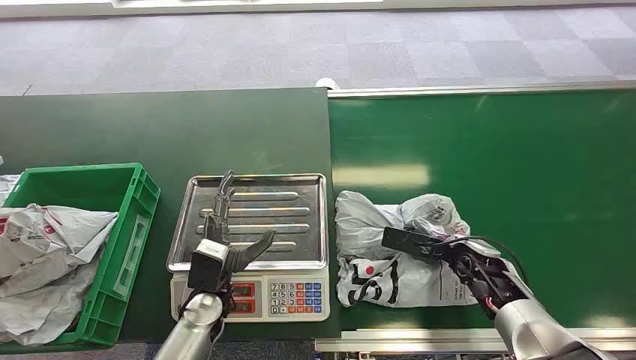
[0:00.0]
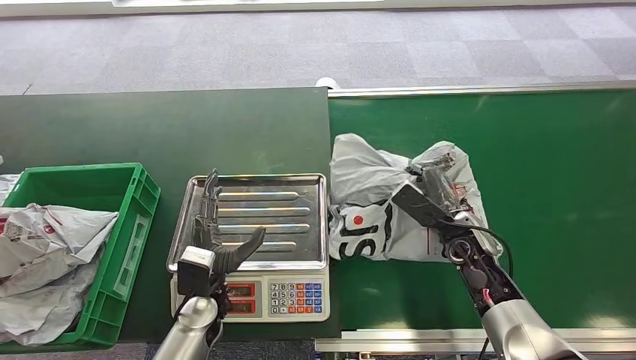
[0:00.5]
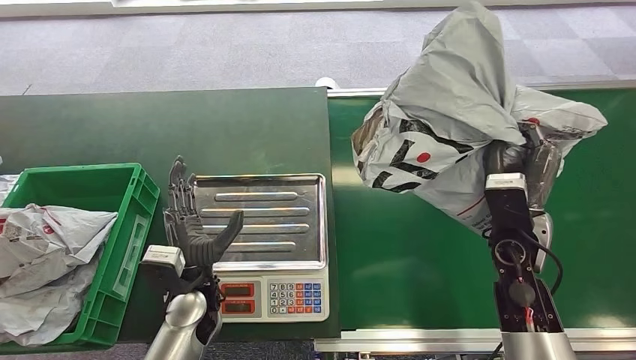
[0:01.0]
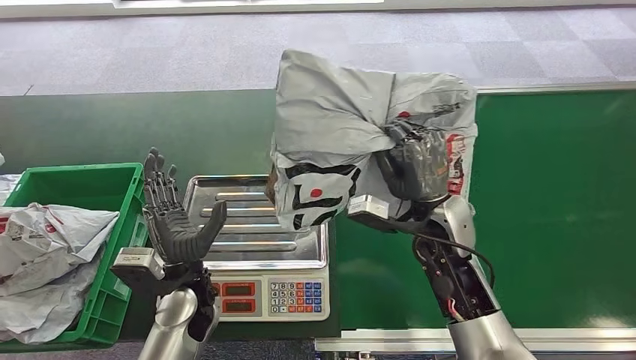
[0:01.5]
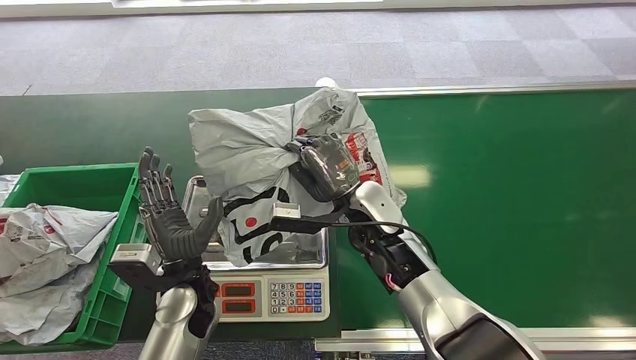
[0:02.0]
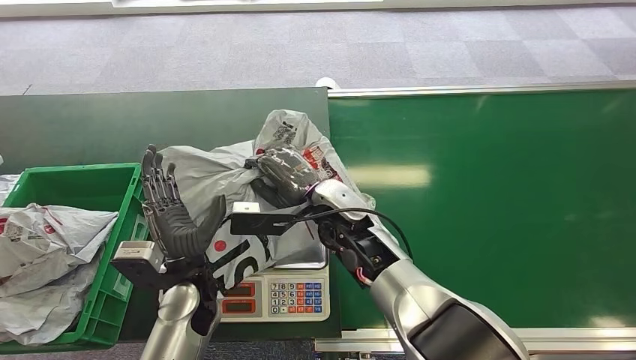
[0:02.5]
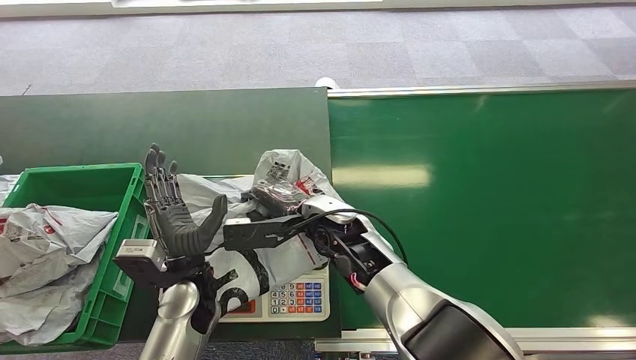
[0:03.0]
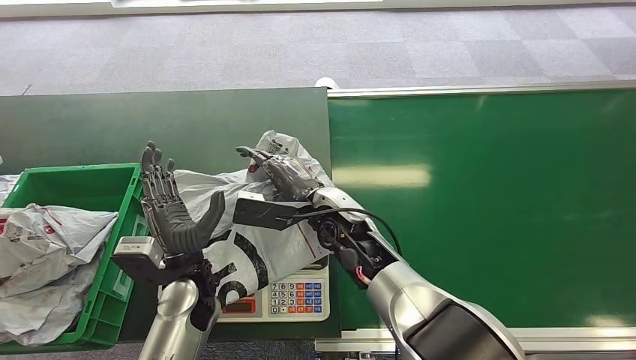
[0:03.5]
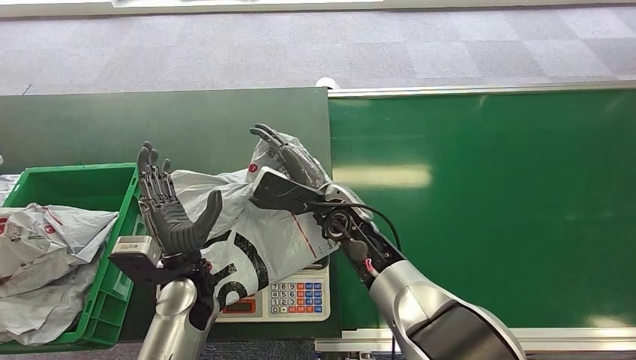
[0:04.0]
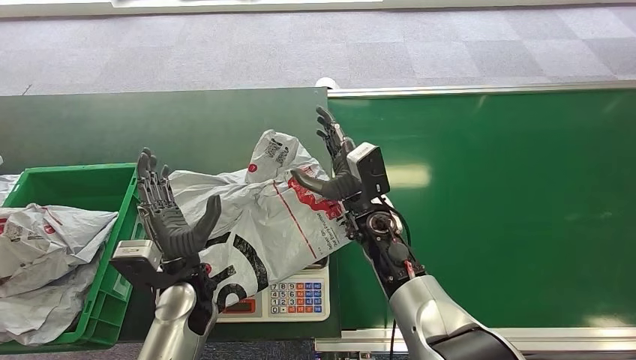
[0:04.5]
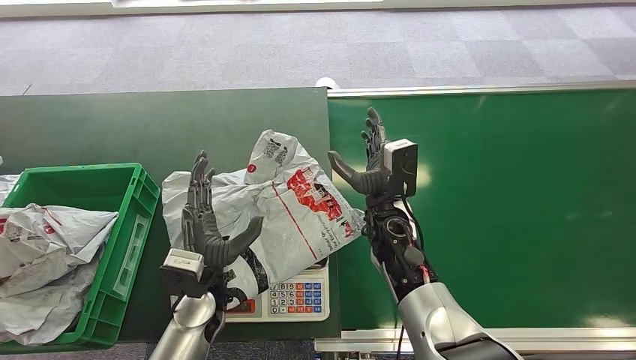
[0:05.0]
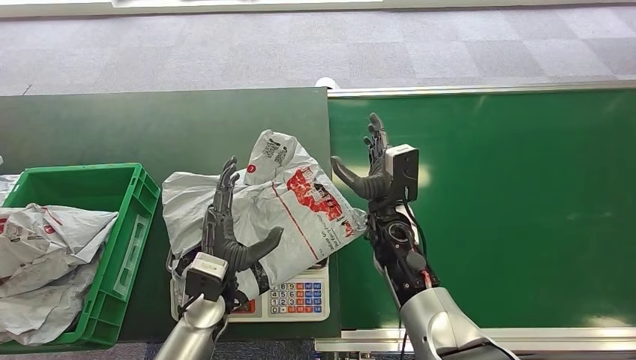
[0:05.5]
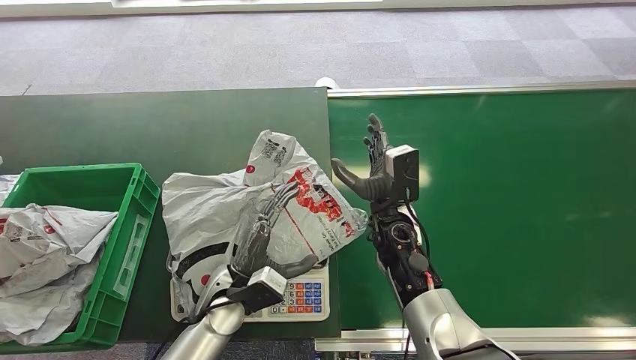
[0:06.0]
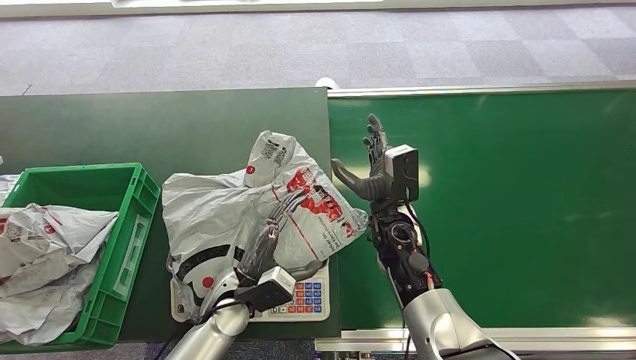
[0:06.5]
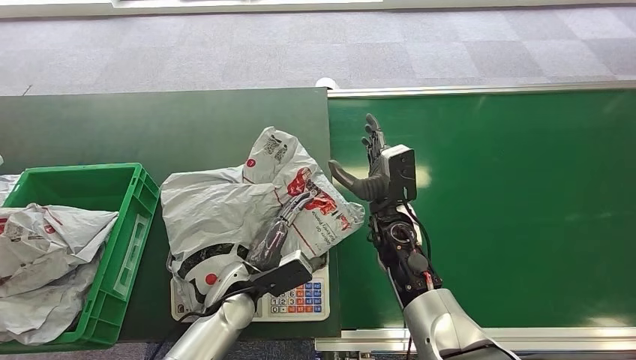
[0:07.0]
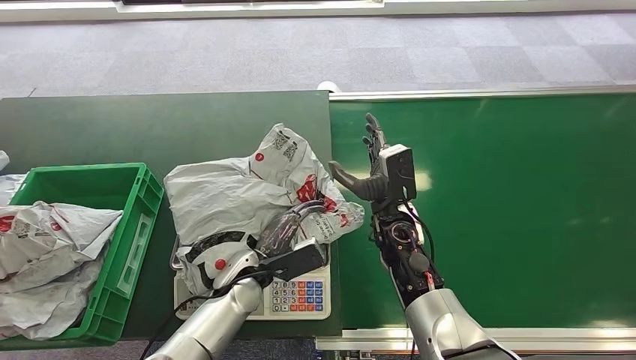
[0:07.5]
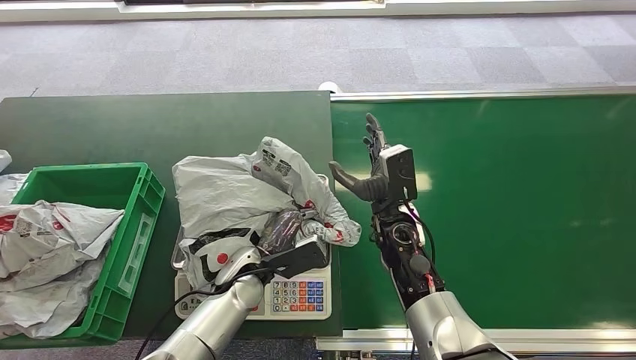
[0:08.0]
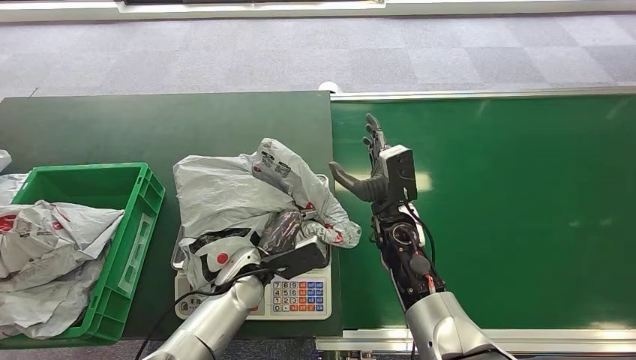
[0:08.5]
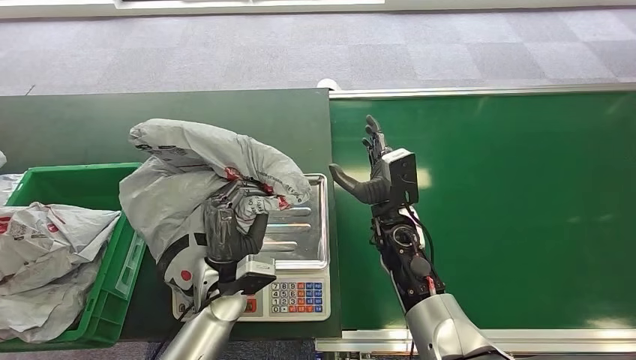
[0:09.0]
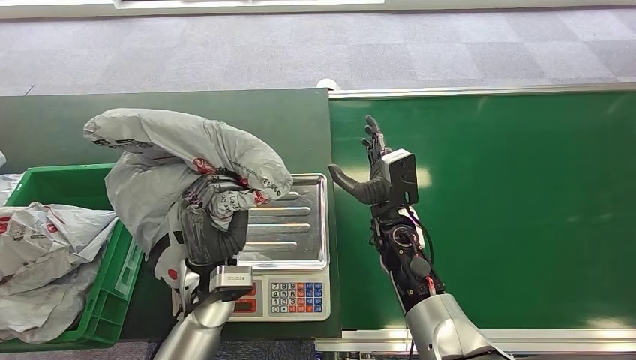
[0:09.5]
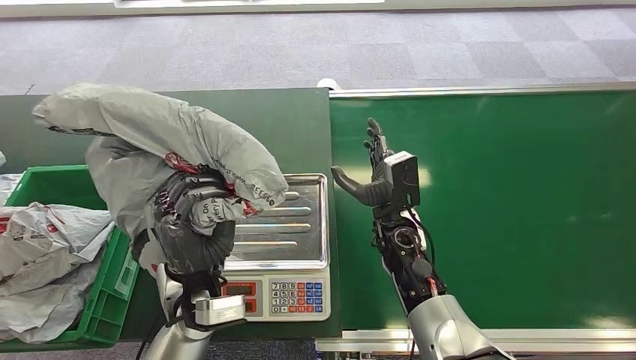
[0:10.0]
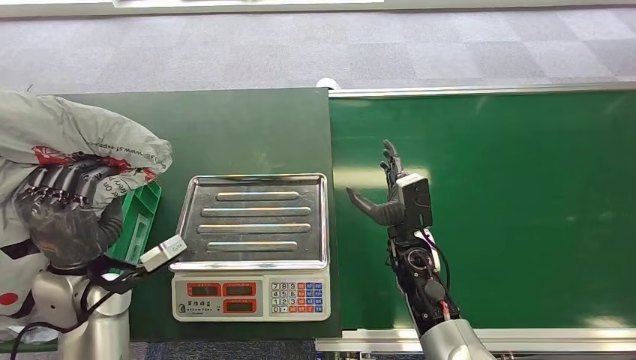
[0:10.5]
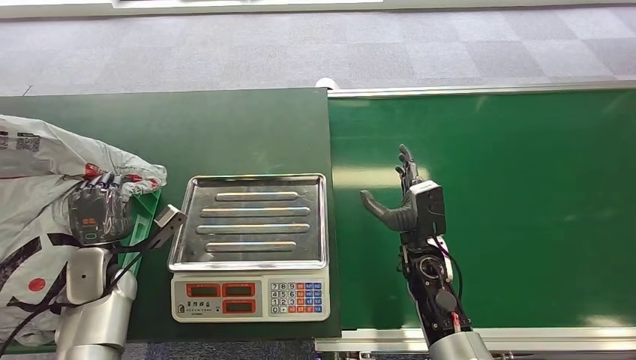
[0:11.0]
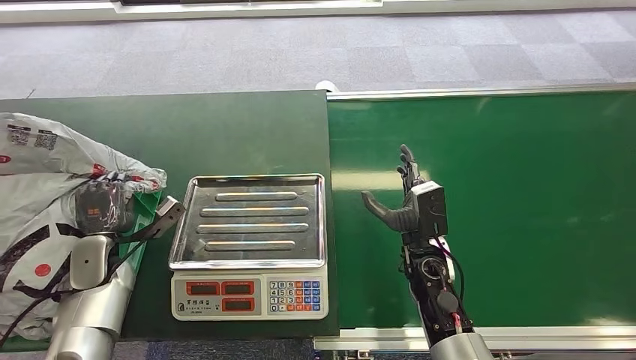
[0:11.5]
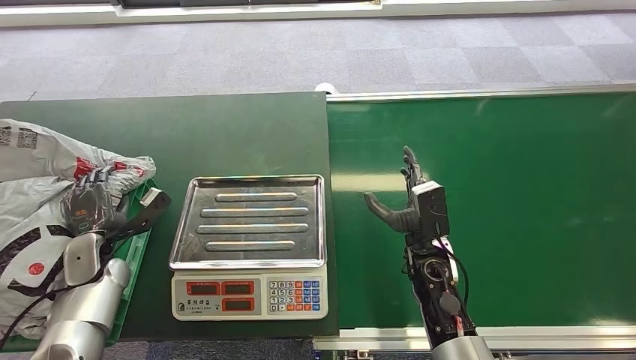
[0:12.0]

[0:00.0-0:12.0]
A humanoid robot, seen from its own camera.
Step, 0:00.0 to 0:00.5: Pick up the package from the conveyor belt.
Step, 0:02.0 to 0:03.0: Place the package onto the inbound machine.
Step, 0:08.5 to 0:09.5: Pick up the package from the inbound machine.
Step, 0:10.5 to 0:12.0: Place the package into the parcel locker.
0:04.0 to 0:06.0: The left hand changes place by roughly 5 cm; the right hand goes some 5 cm to the right.

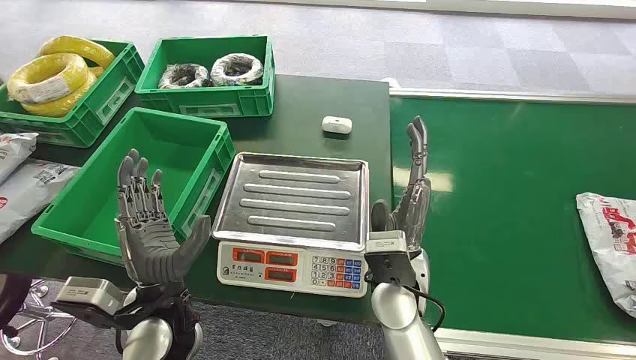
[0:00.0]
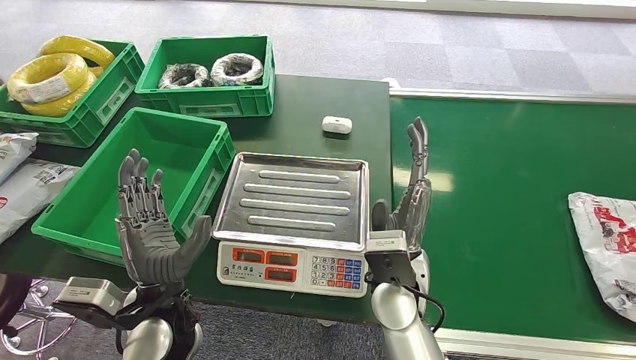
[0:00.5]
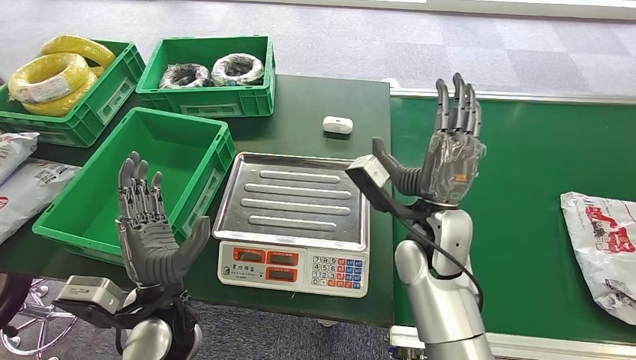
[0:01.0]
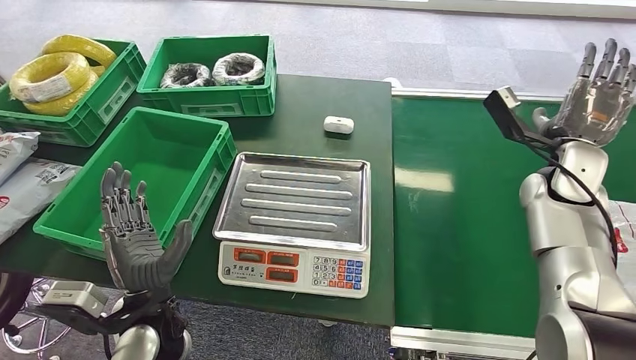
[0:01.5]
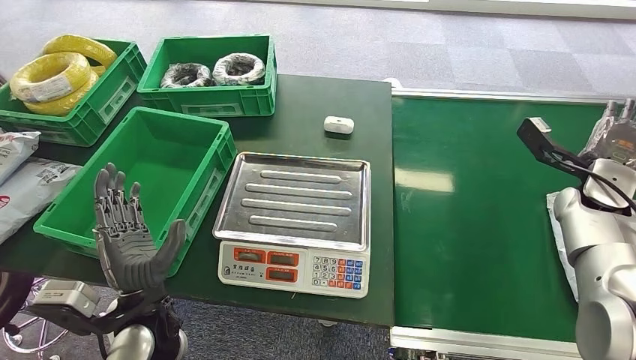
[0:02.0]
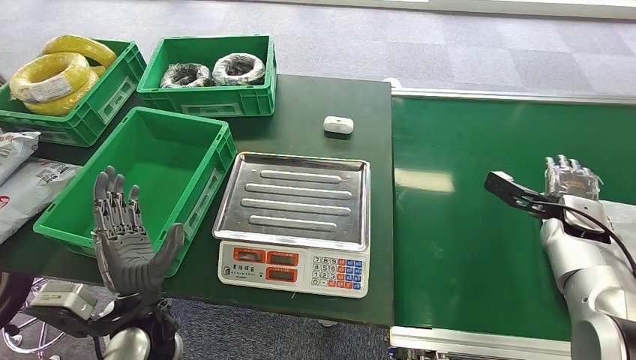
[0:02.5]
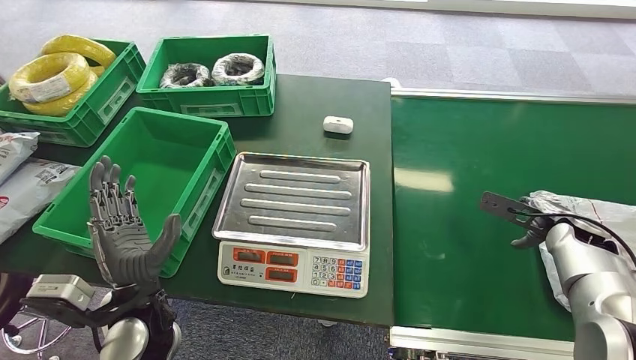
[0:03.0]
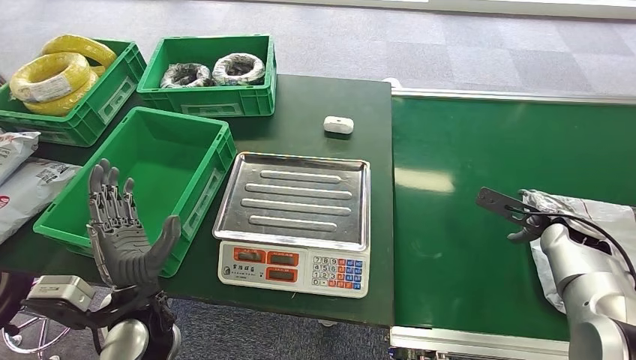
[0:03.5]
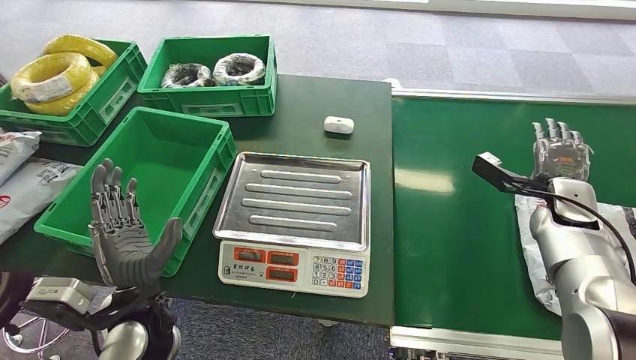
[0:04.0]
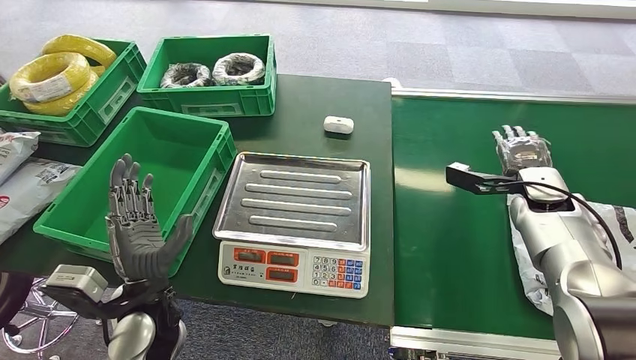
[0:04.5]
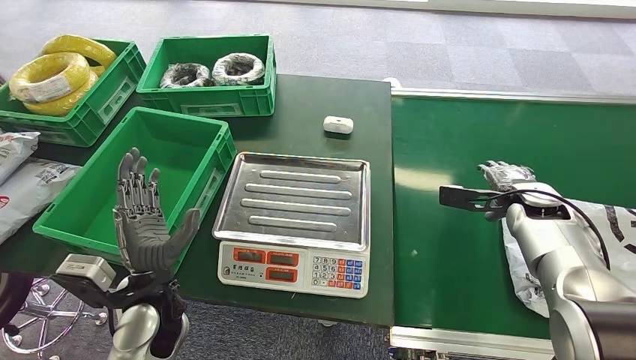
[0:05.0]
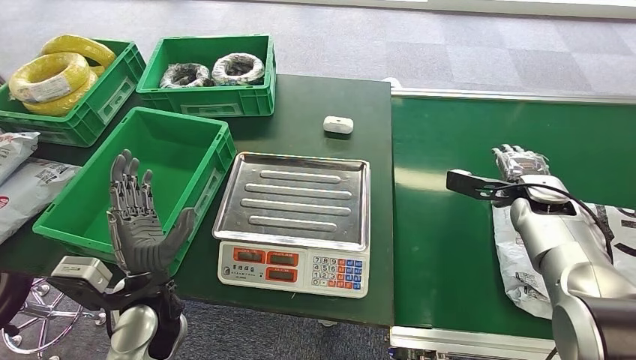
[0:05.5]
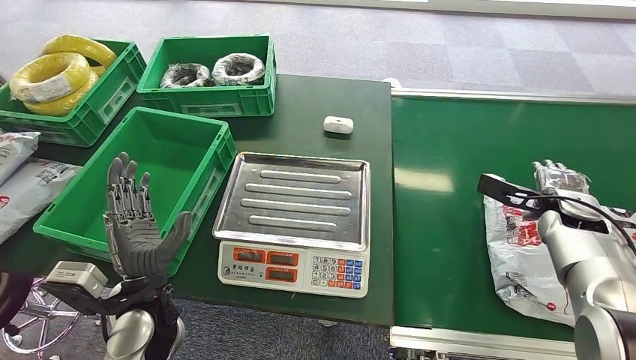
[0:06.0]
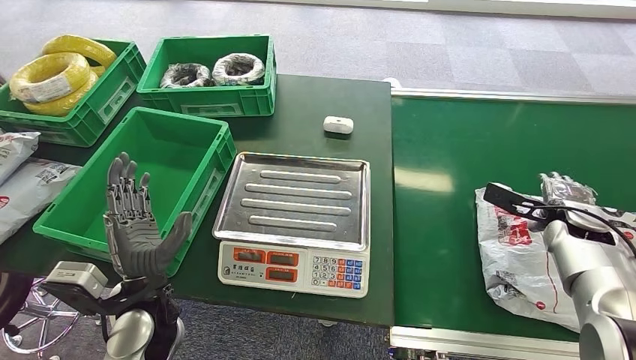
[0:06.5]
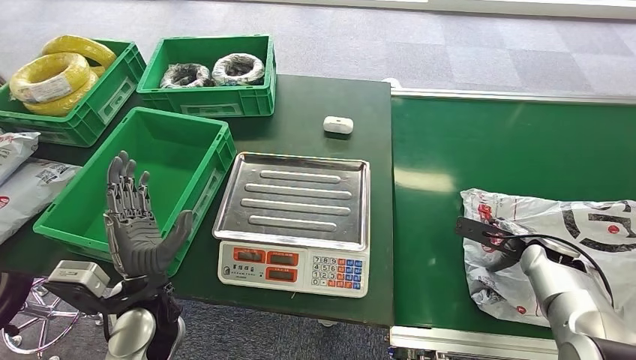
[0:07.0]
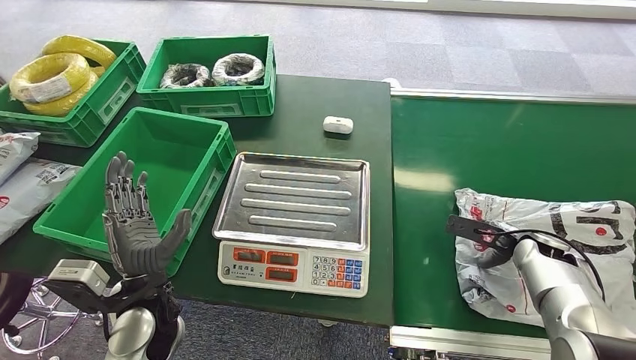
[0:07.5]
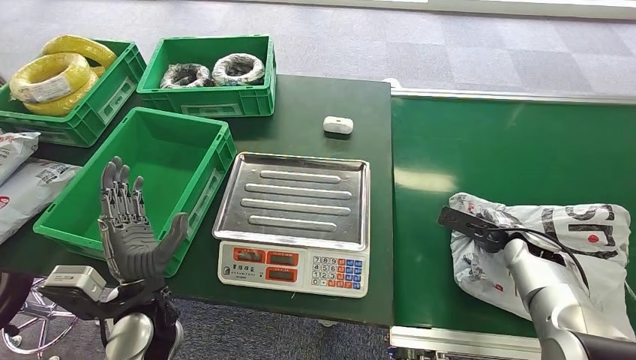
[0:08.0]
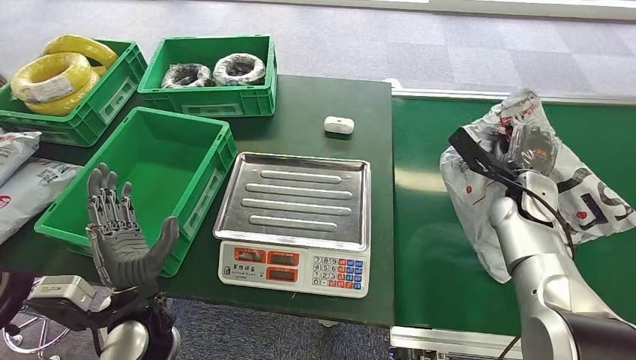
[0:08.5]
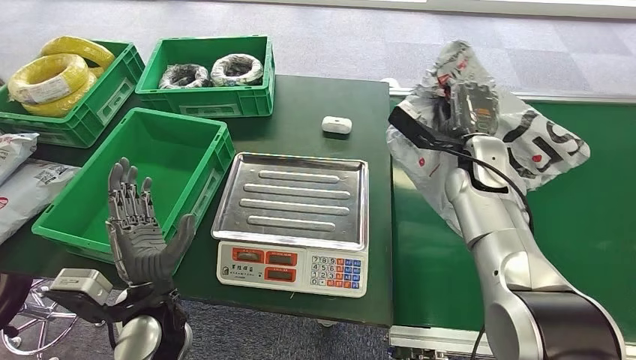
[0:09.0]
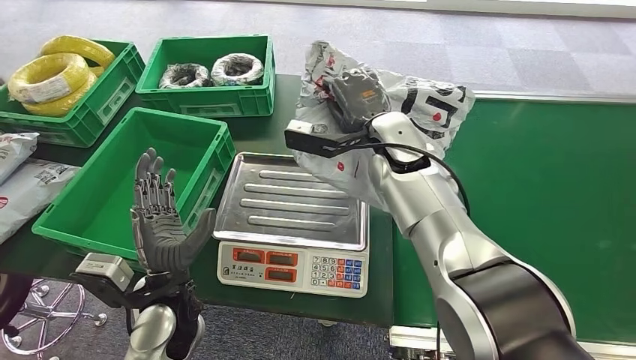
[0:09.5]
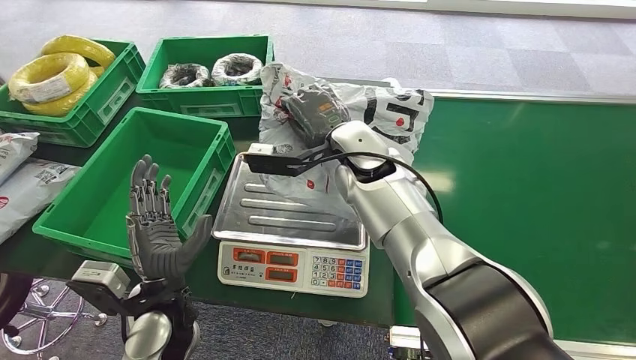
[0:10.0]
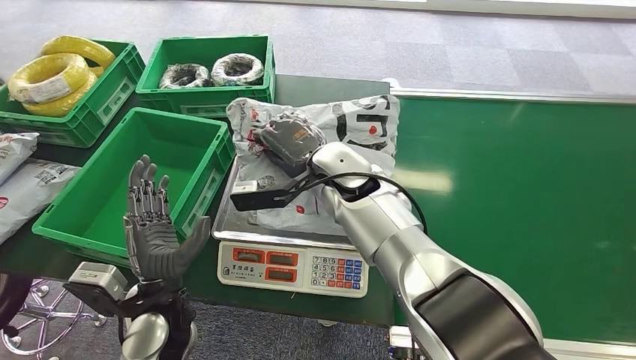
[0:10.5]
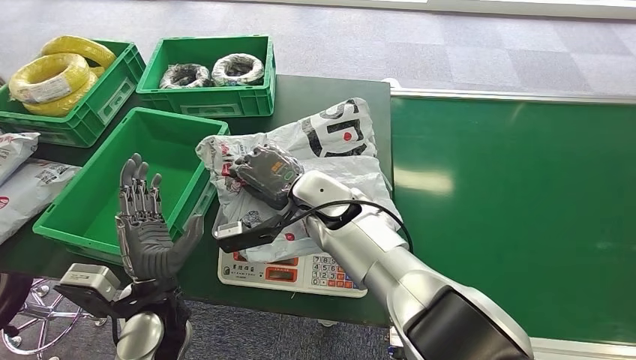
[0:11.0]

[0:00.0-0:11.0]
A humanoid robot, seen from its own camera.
Step, 0:00.0 to 0:08.5: Pick up the package from the conveyor belt.
0:02.0 to 0:03.5: The right hand shifts some 10 cm downward.
0:03.5 to 0:05.5: The right hand is displaced to the left by approximately 5 cm.
0:05.5 to 0:07.5: The right hand travels downward and backward by some 10 cm.
